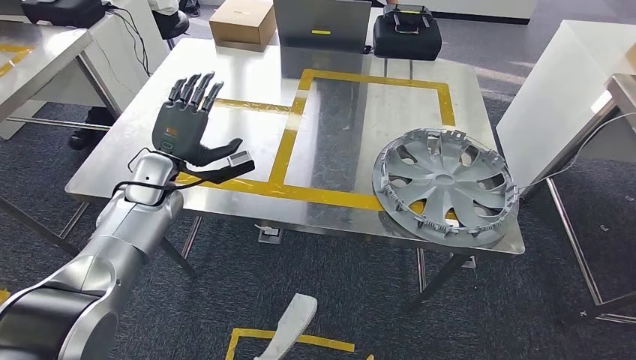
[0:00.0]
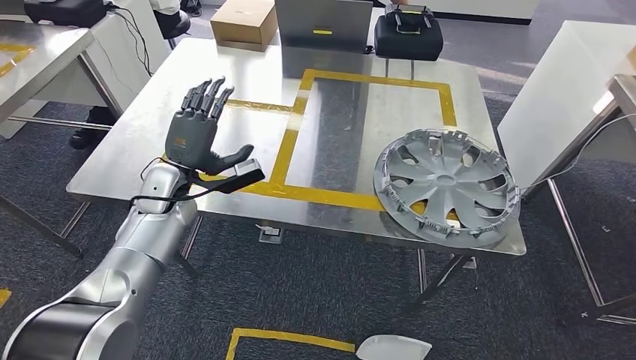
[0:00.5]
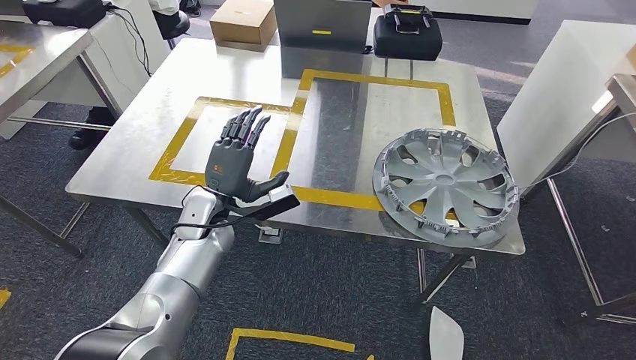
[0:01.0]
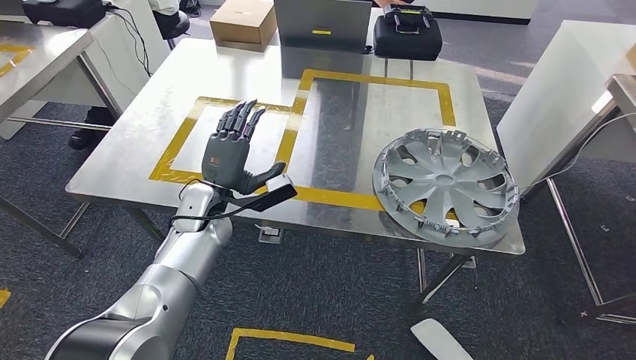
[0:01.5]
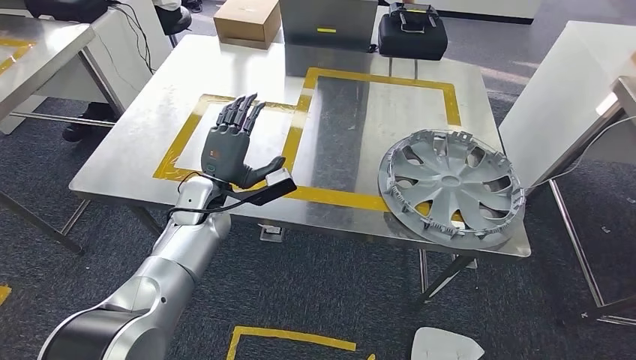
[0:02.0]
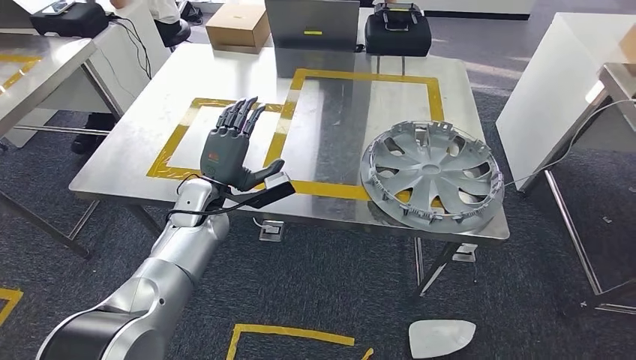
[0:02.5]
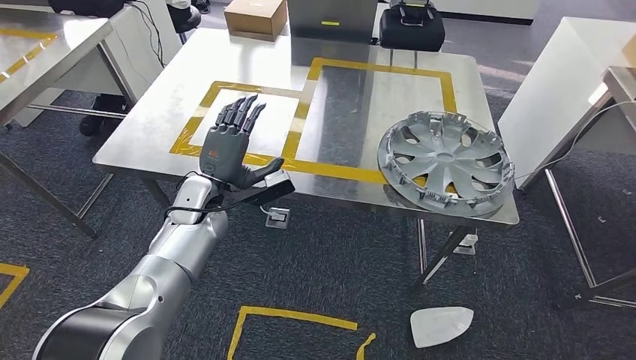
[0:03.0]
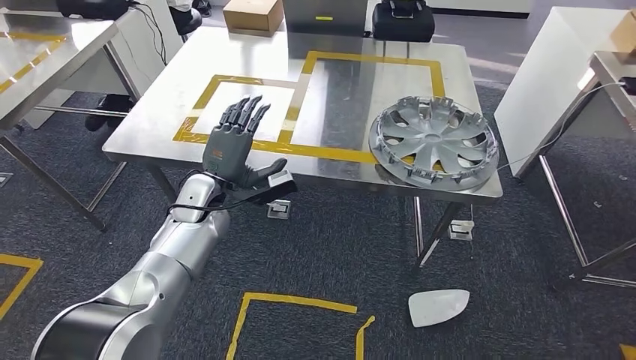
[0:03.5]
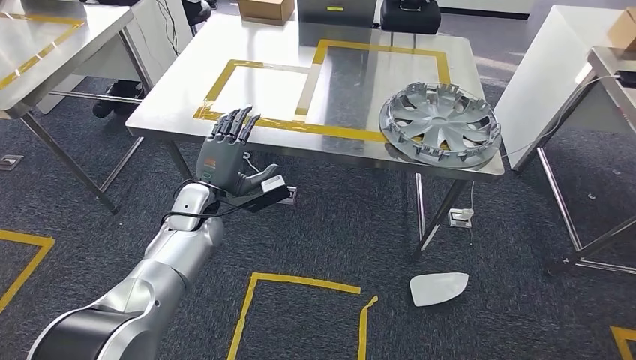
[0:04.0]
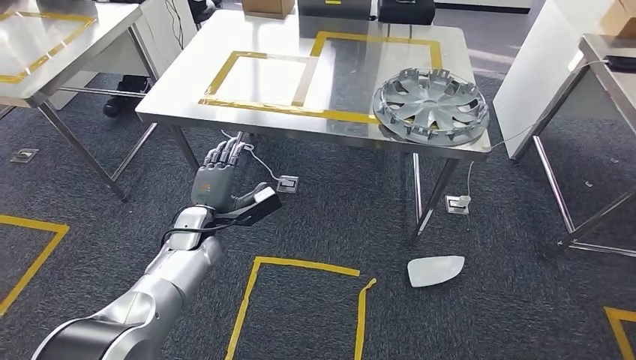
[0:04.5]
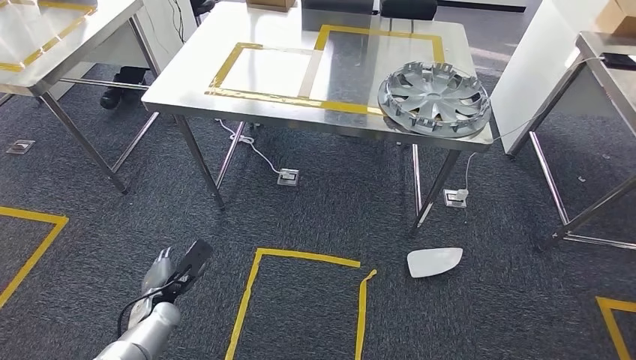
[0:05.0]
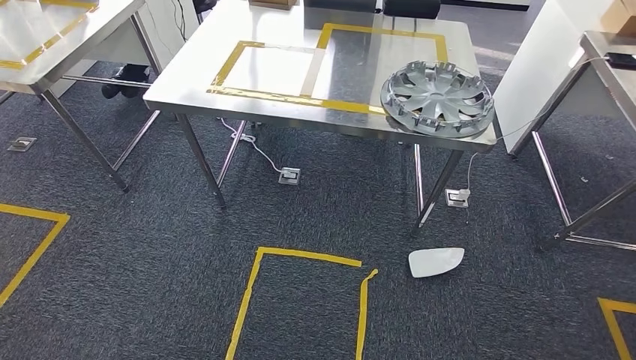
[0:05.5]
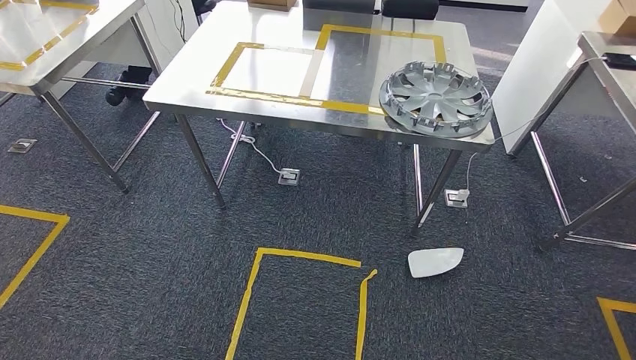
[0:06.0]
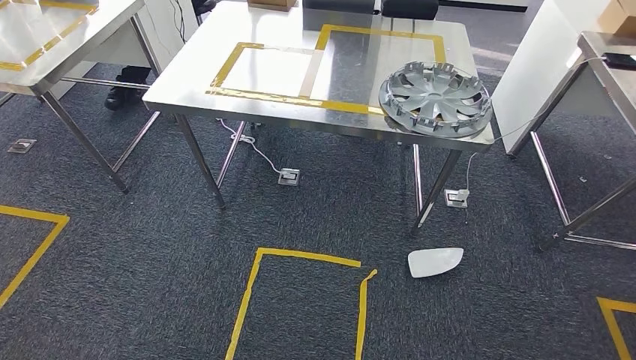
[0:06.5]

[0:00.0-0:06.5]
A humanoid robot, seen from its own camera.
Step, 0:01.5 to 0:06.5: Return to the initial position at the workbench.
